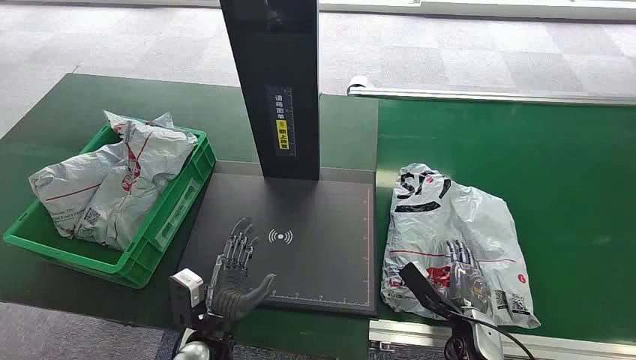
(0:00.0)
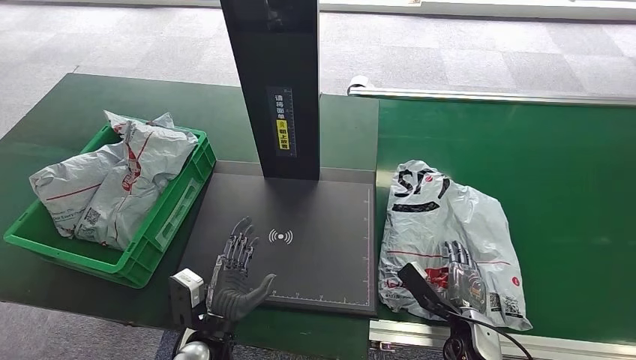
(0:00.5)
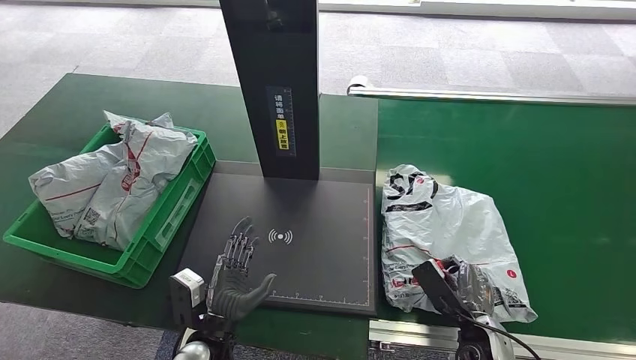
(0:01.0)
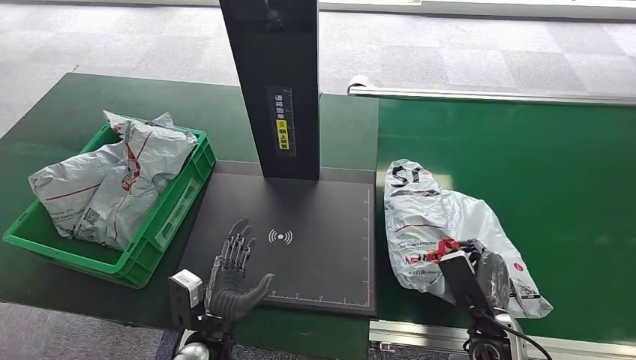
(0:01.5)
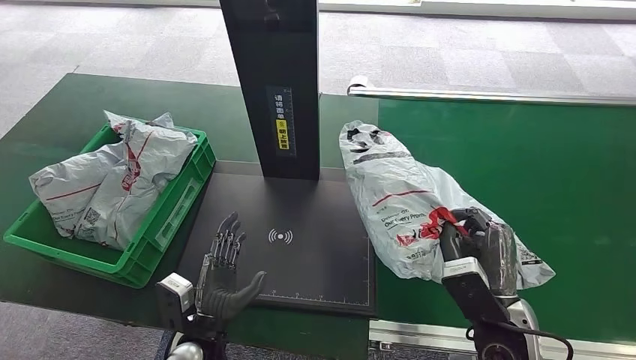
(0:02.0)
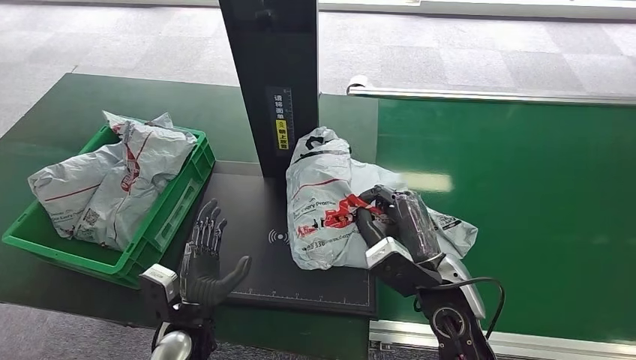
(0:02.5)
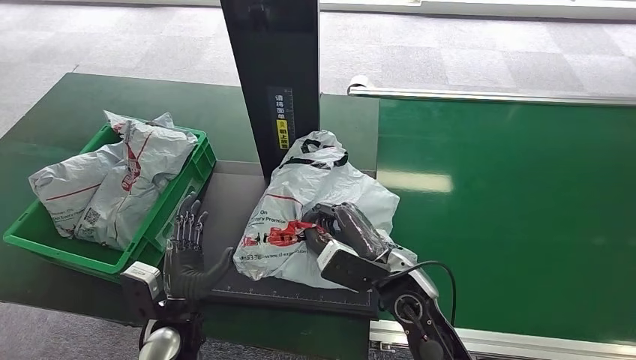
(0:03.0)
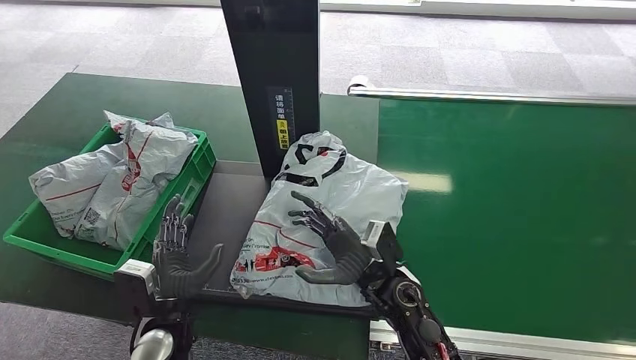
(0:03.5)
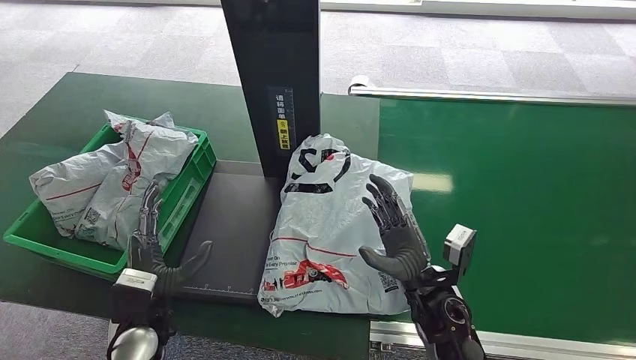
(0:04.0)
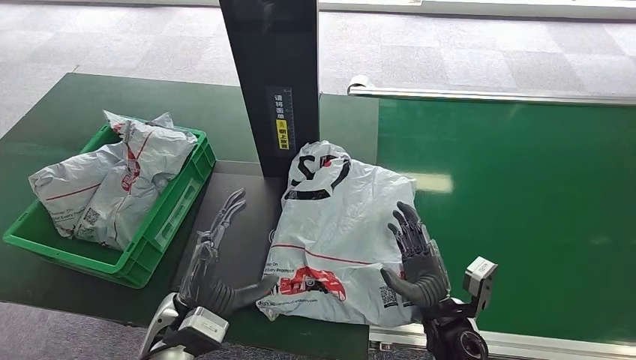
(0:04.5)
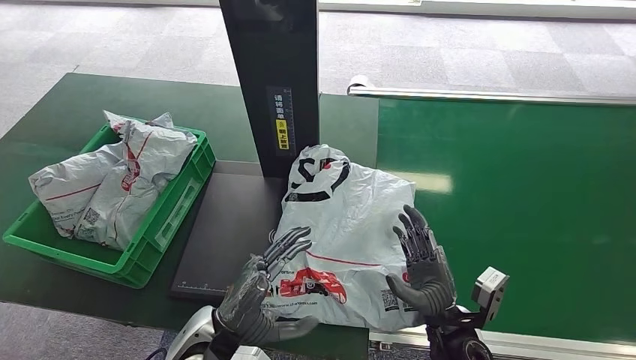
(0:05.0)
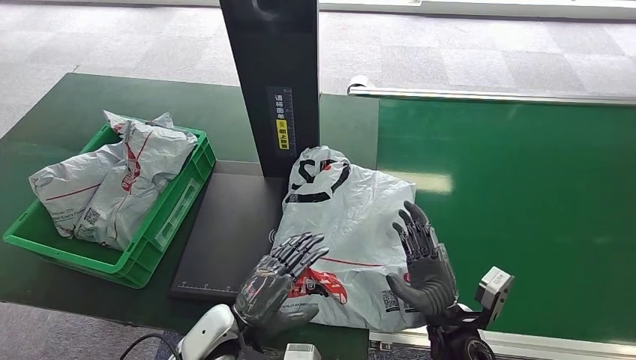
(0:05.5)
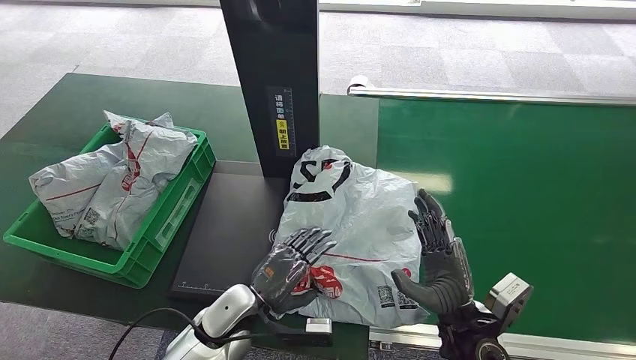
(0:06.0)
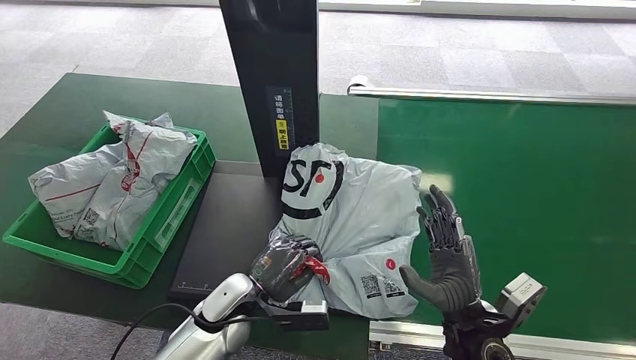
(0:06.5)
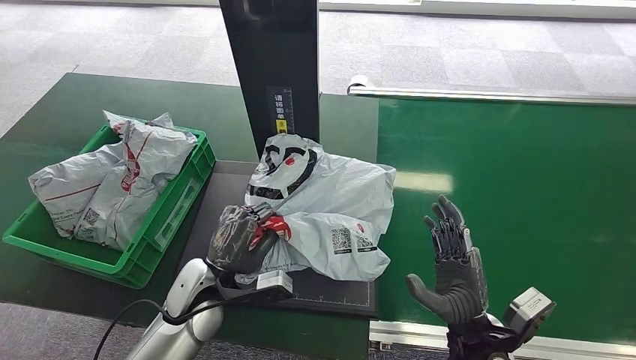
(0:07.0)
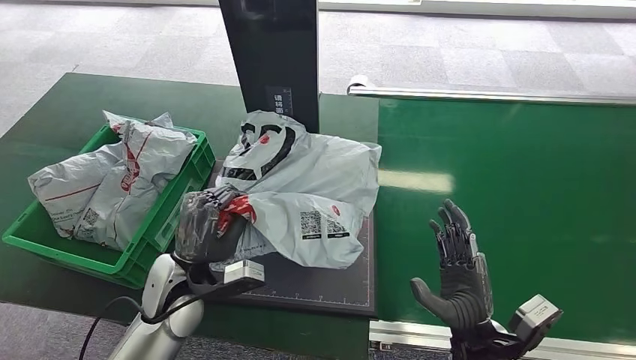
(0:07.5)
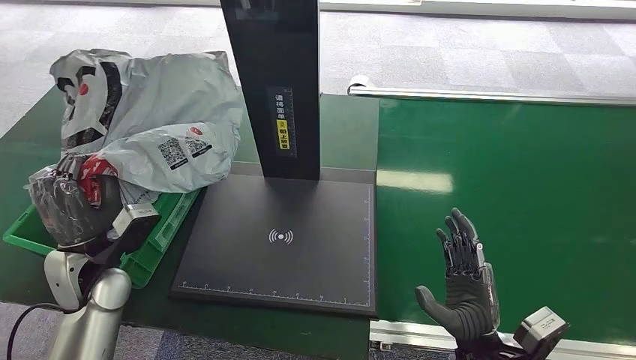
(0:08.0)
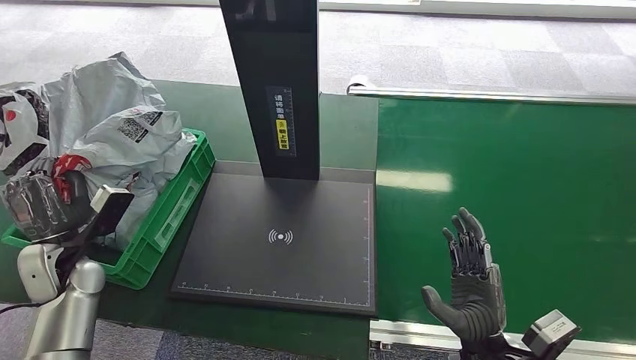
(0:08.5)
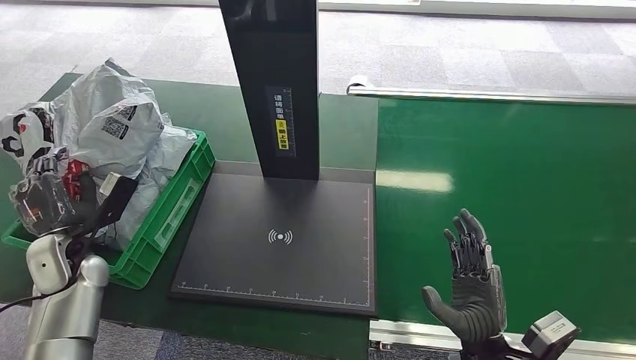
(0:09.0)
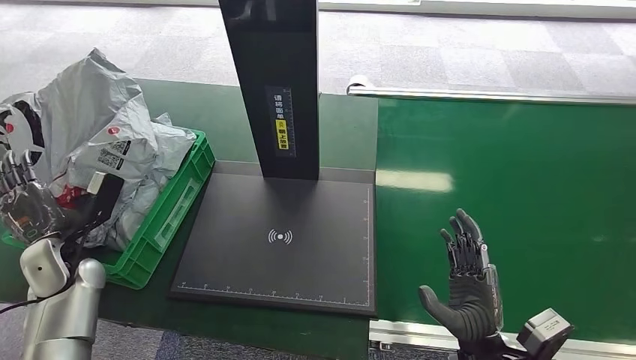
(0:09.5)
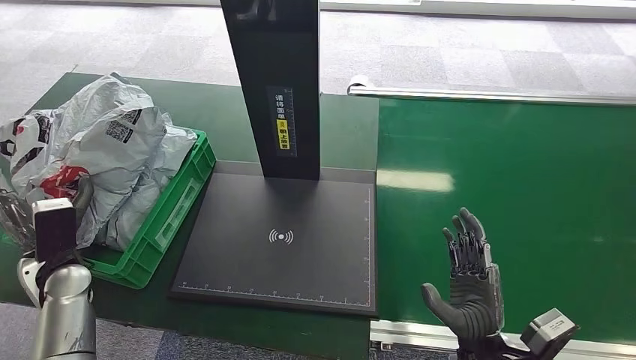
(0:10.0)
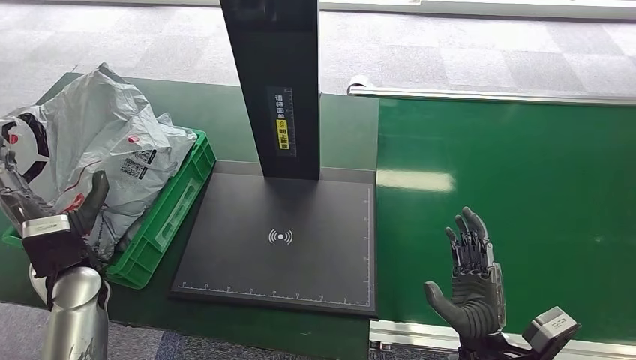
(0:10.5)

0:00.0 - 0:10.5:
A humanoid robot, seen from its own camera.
Step, 0:00.0 - 0:02.0: Pick up the package from the conveyor belt.
Step, 0:02.5 - 0:05.0: Place the package onto the inbound machine.
Step, 0:05.5 - 0:08.0: Pick up the package from the inbound machine.
Step, 0:08.5 - 0:10.5: Place the package into the parcel locker.
0:04.0 - 0:06.5: The right hand shifts about 5 cm backward; the left hand heads to the right and forward, covering about 10 cm.
